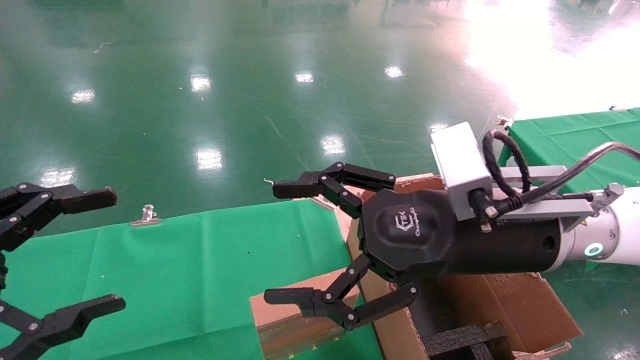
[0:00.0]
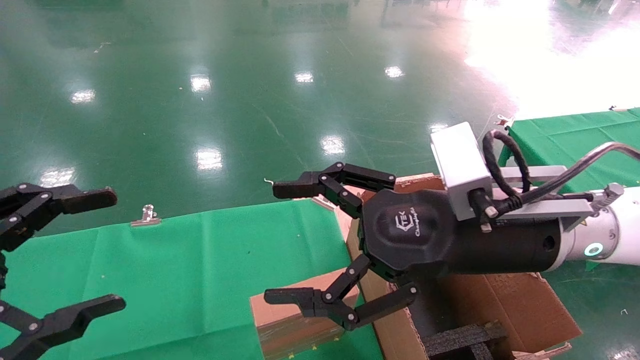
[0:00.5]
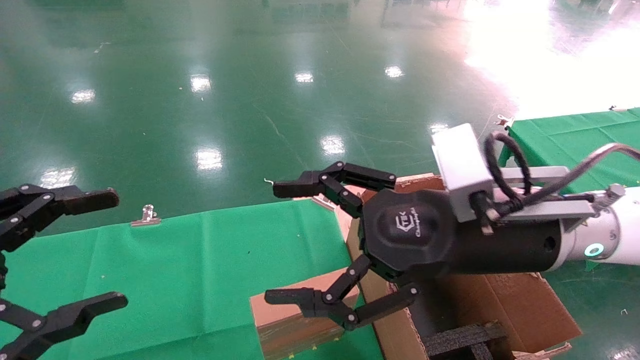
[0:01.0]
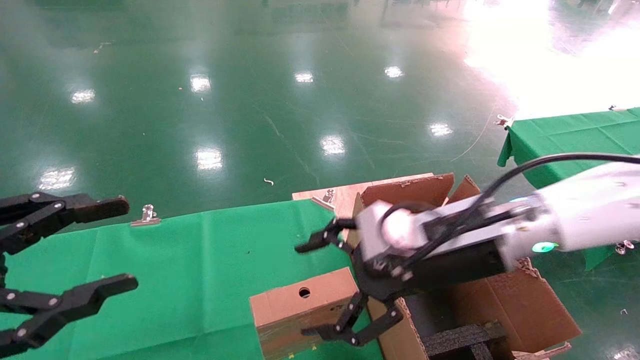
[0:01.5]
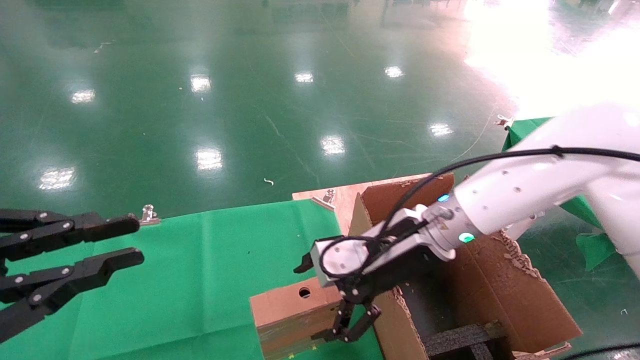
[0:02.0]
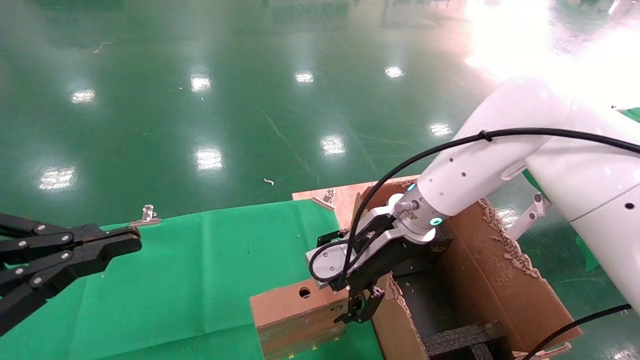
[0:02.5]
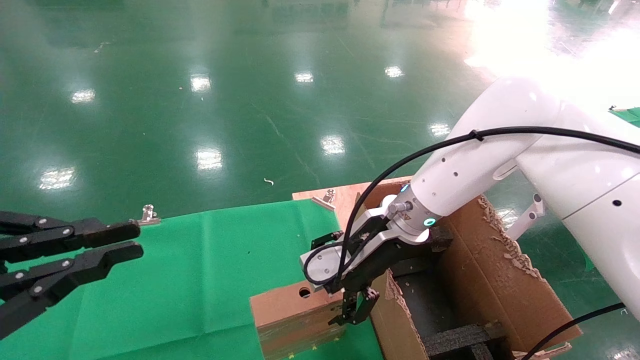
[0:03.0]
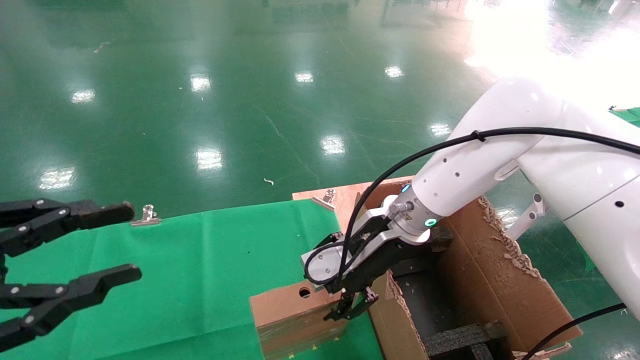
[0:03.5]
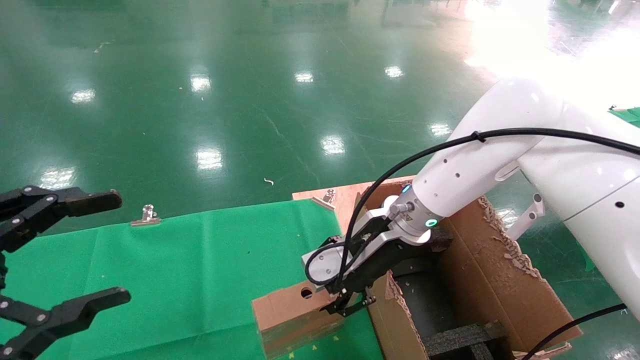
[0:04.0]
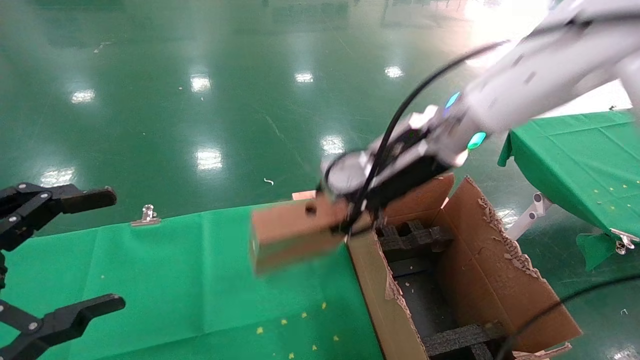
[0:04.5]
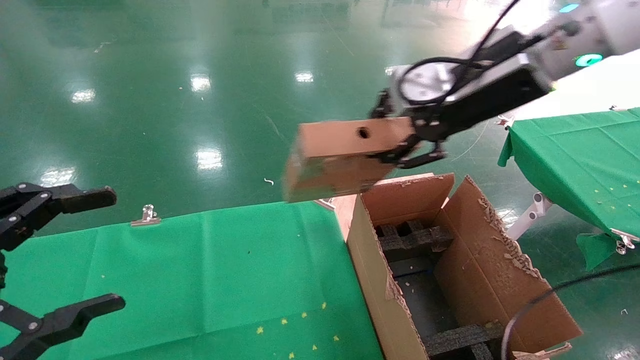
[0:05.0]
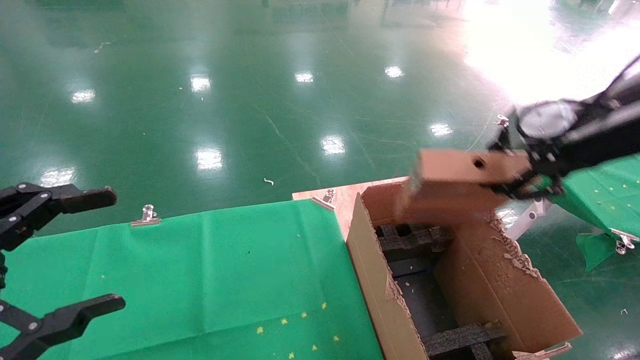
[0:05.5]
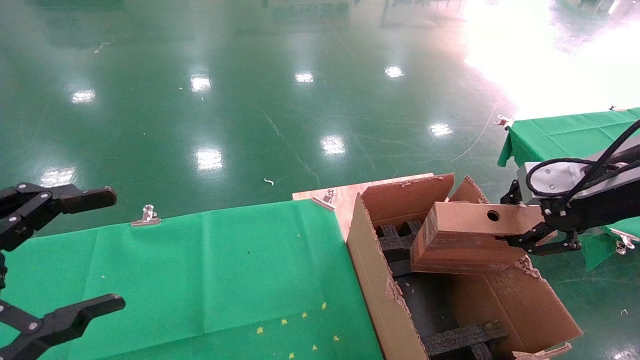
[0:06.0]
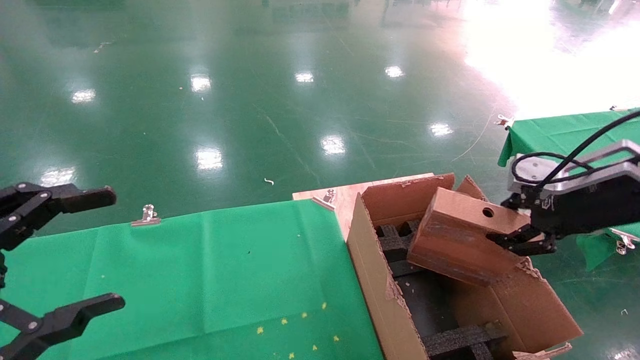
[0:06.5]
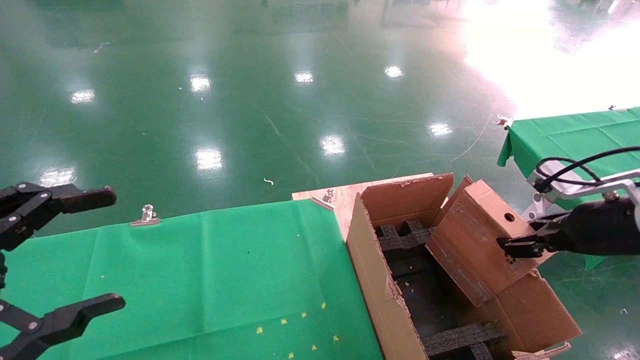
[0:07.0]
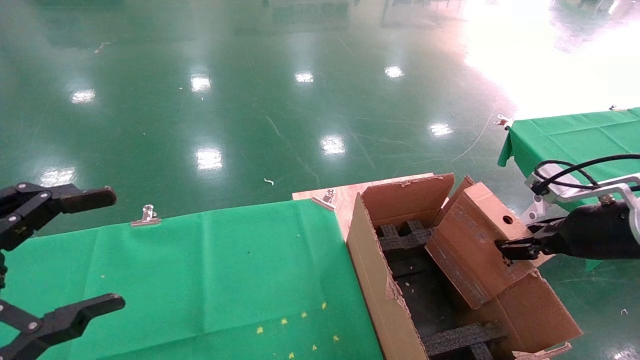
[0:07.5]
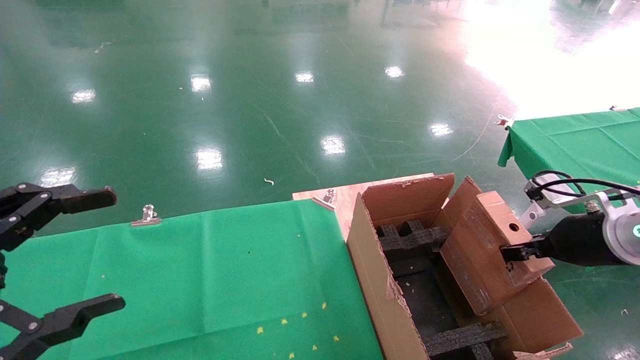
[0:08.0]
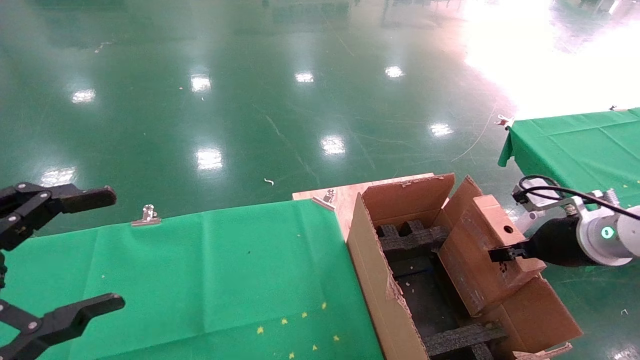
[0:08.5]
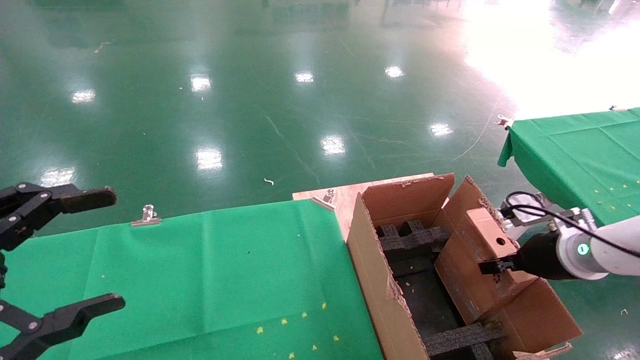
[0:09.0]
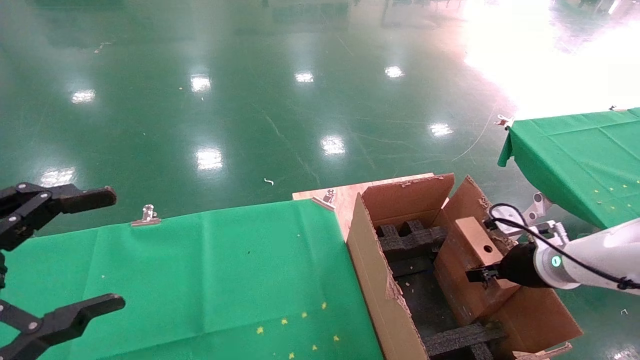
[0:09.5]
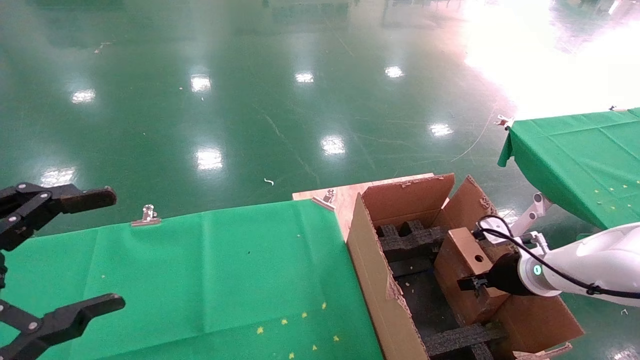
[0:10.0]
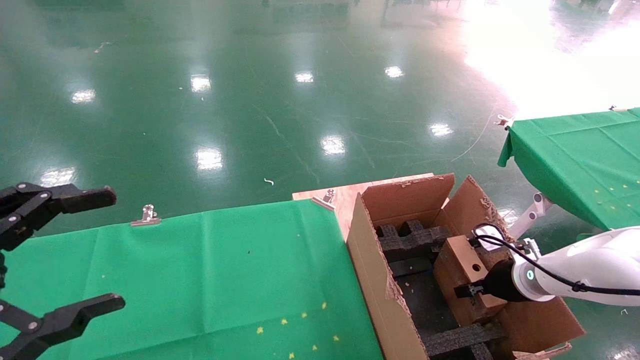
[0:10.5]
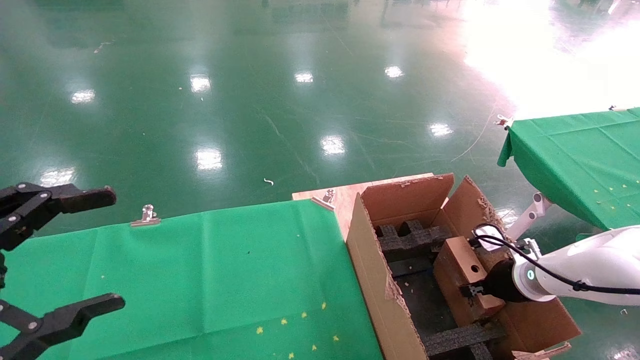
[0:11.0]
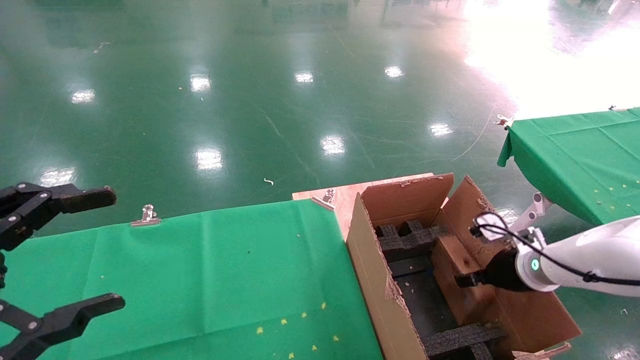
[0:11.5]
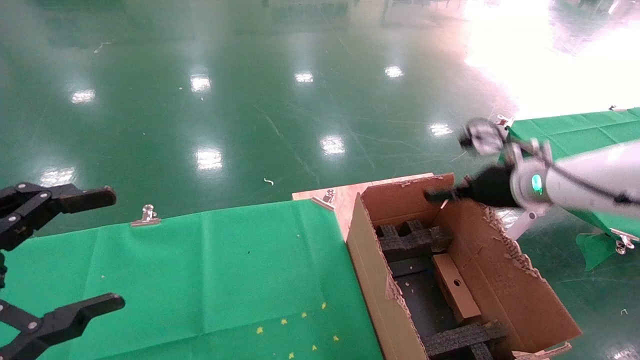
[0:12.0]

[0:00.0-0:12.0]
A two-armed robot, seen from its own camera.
Task of the whole recording: using a robotic arm to pick up a cardboard box and palace it the carton.
Step, 0:01.5 to 0:03.5: Pick up the mouse and the power cord paper box.
Step, 0:04.0 to 0:11.0: Place the mouse and the power cord paper box into the container.
0:00.0 to 0:02.0: The left gripper closes, while the right gripper travels forward and downward by some 10 cm.
0:02.0 to 0:04.0: The left gripper opens. Meanwhile the right gripper closes its fingers.
0:04.0 to 0:06.0: The right gripper shifts some 30 cm to the right and backward.
0:06.0 to 0:08.0: The right gripper shifts about 10 cm downward.
0:08.0 to 0:10.0: The right gripper is displaced downward and forward by some 15 cm.
0:10.0 to 0:12.0: The right gripper shifts about 15 cm upward, and opens its fingers.

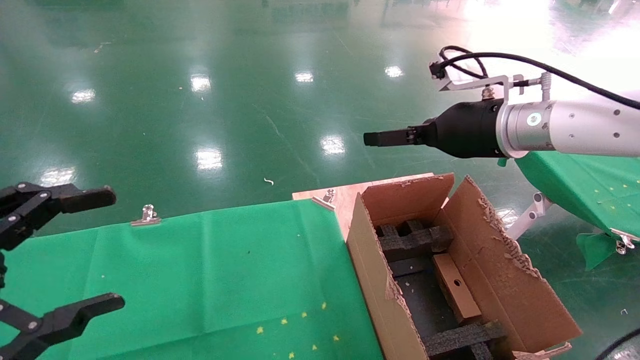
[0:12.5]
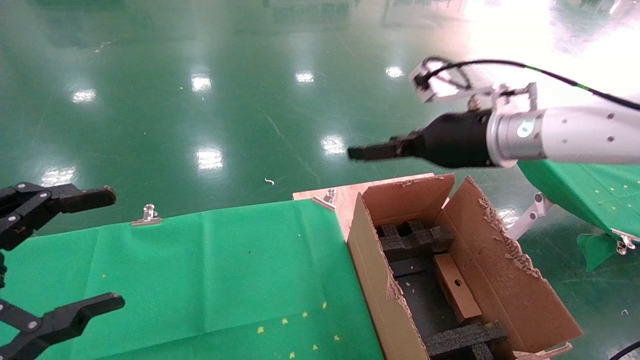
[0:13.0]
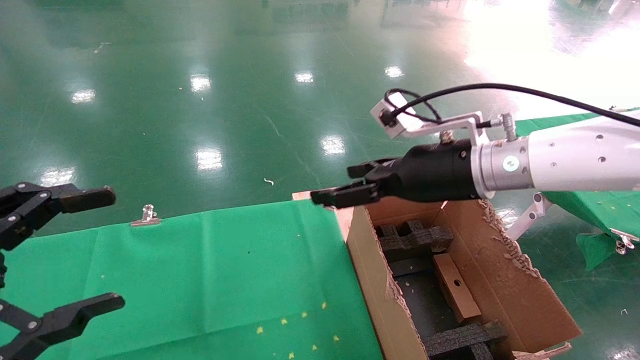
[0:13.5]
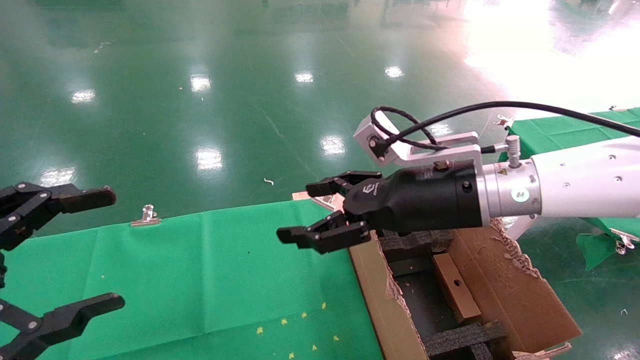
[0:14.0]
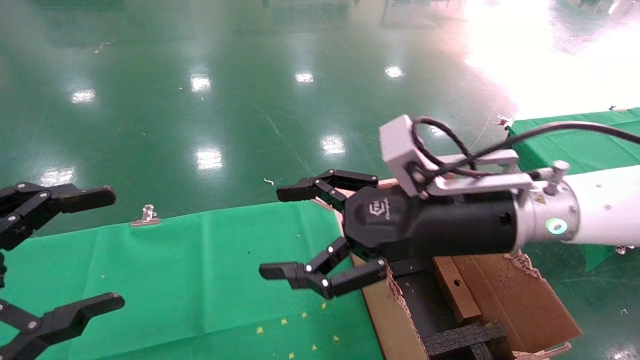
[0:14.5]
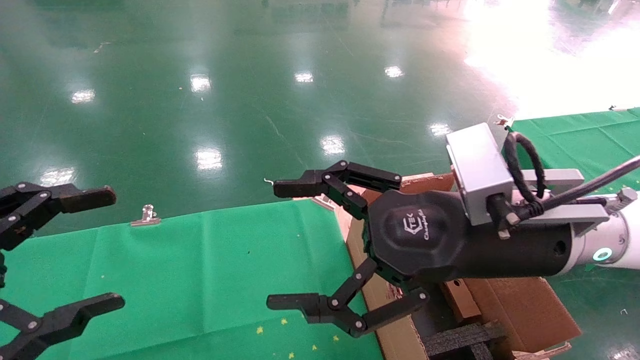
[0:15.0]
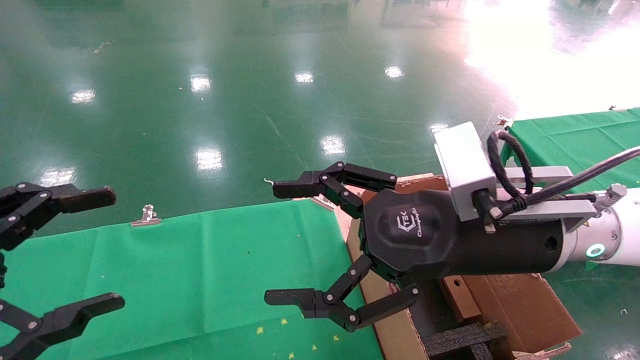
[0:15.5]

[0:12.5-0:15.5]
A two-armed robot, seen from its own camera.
Task of the whole recording: using a robotic arm to pick up a cardboard box and palace it the carton.
0:12.5 to 0:14.0: The right gripper travels to the left, backward and downward by some 10 cm.
0:14.0 to 0:15.5: The right gripper moves backward, about 5 cm.

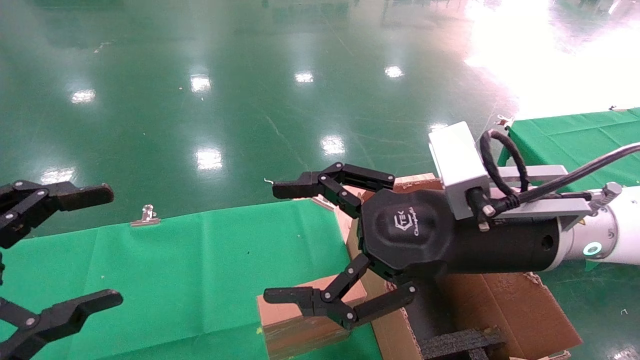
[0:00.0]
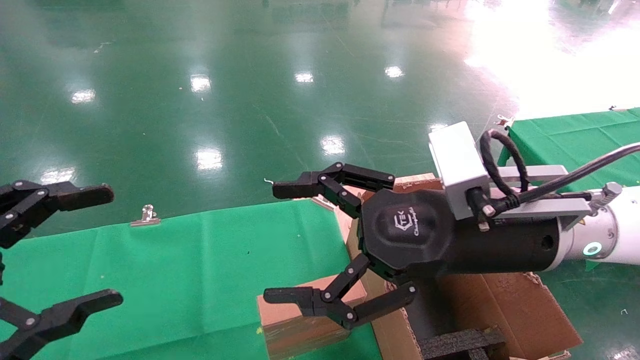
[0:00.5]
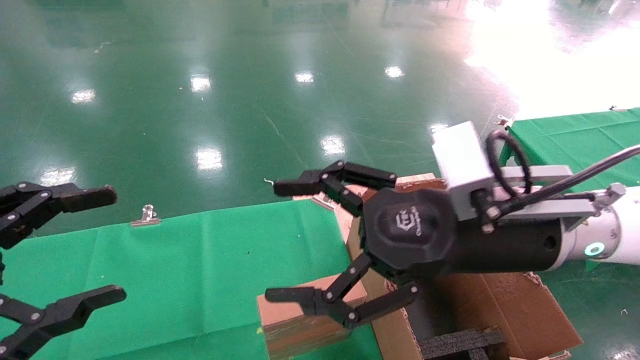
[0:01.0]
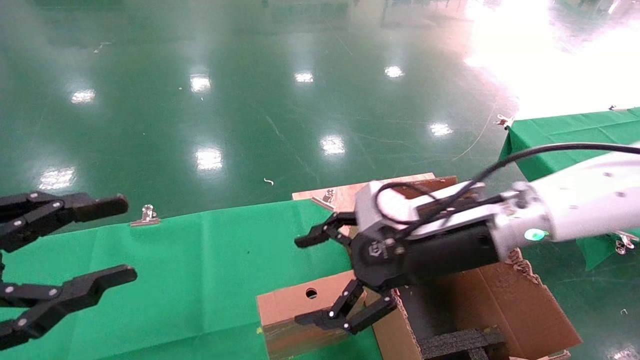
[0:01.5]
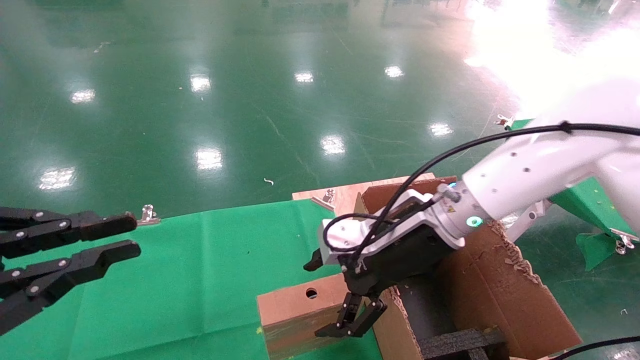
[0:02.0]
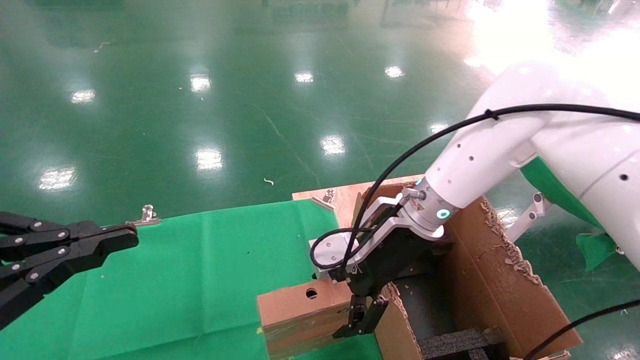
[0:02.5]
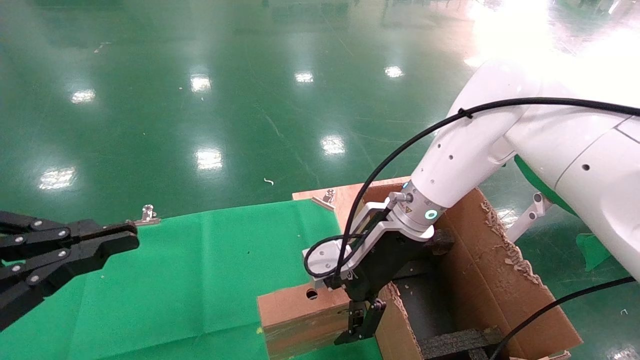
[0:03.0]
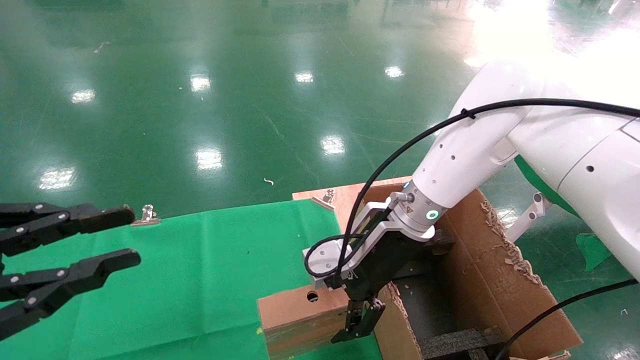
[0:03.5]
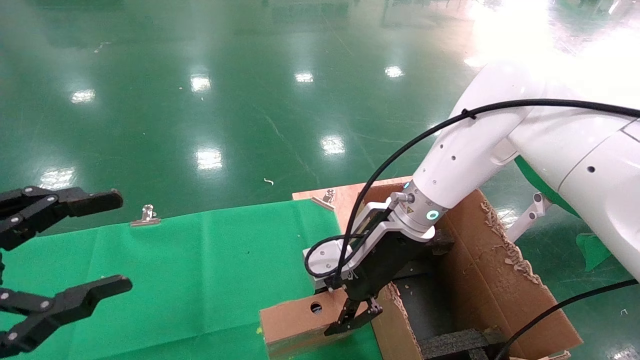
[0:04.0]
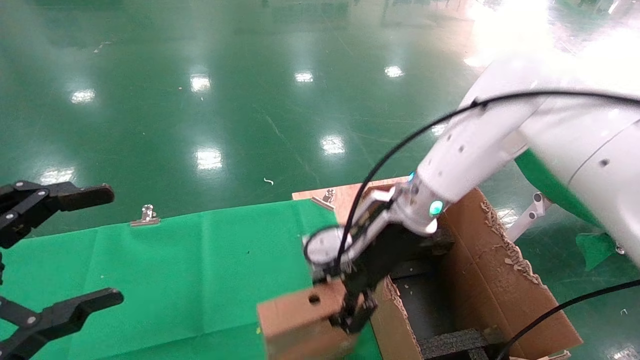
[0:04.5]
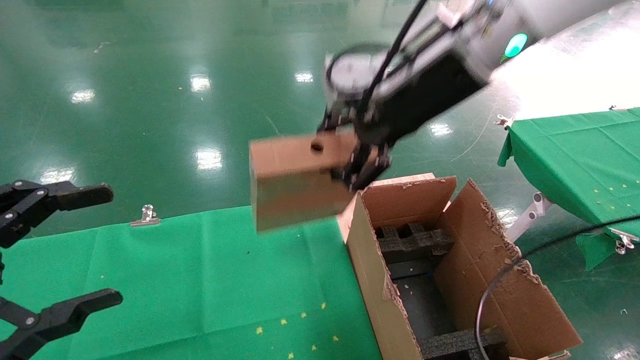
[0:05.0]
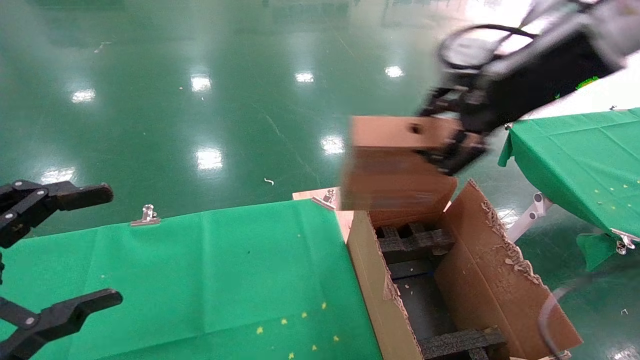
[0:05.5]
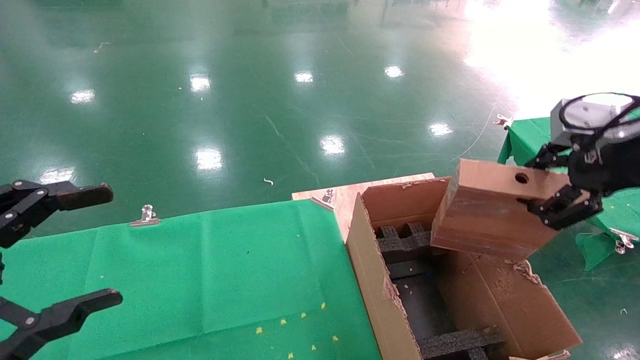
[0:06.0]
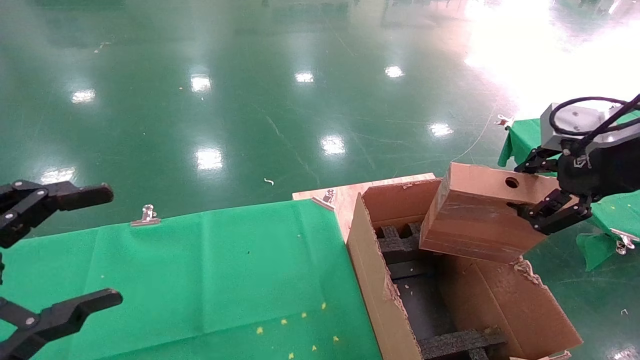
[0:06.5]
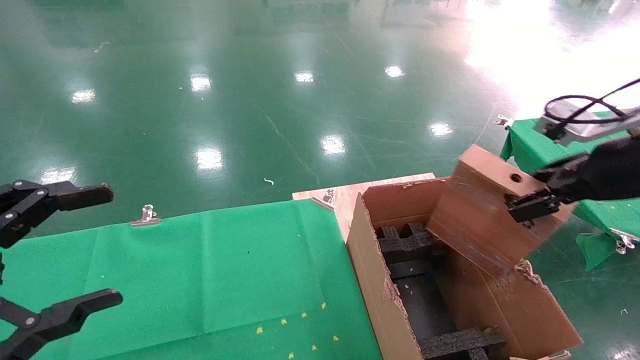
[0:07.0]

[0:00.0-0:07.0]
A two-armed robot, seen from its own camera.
Task of the whole recording: using a robotic arm to pick up a cardboard box and palace it the carton.
Step, 0:01.5 to 0:04.0: Pick up the mouse and the power cord paper box.
0:00.0 to 0:02.0: The left gripper closes its fingers, while the right gripper is displaced forward by roughly 10 cm.
0:02.0 to 0:03.5: The grippers make only small movements.
0:03.5 to 0:05.0: The left gripper opens. Meanwhile the right gripper shifts approximately 20 cm upward, and closes its fingers.
0:05.0 to 0:07.0: The right gripper goes about 25 cm to the right and backward.
